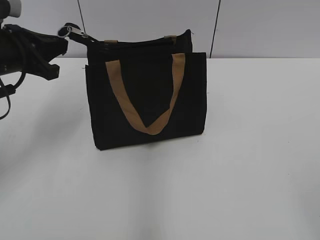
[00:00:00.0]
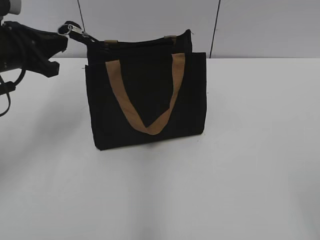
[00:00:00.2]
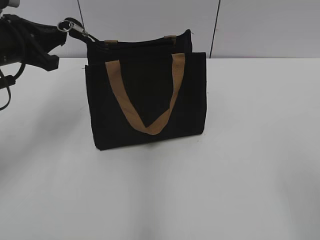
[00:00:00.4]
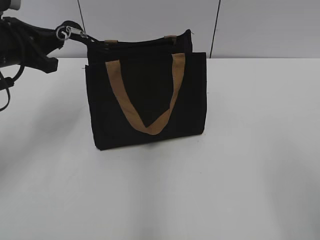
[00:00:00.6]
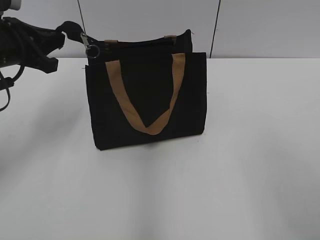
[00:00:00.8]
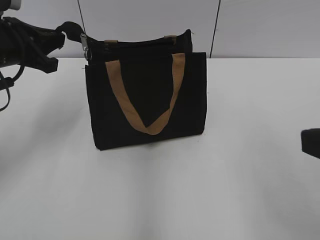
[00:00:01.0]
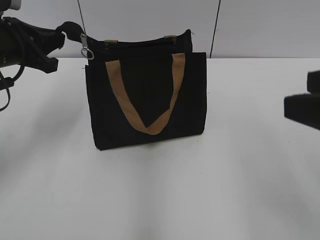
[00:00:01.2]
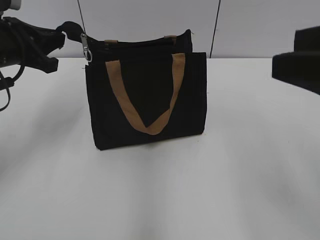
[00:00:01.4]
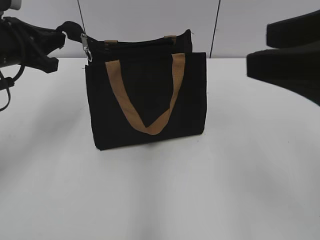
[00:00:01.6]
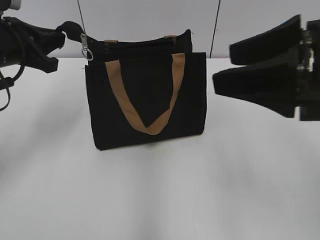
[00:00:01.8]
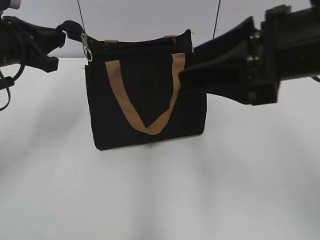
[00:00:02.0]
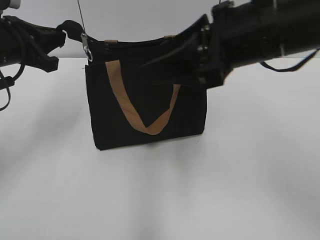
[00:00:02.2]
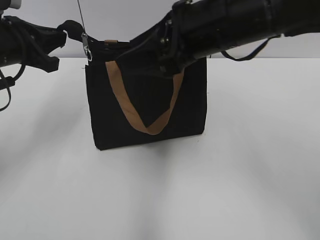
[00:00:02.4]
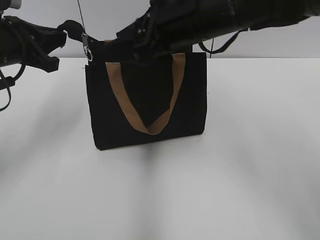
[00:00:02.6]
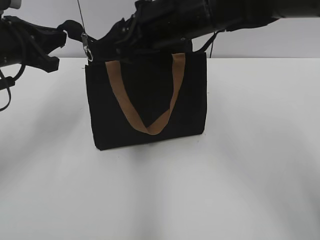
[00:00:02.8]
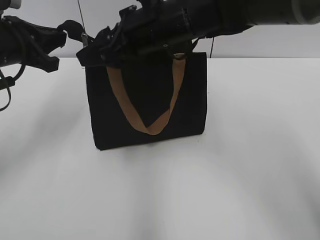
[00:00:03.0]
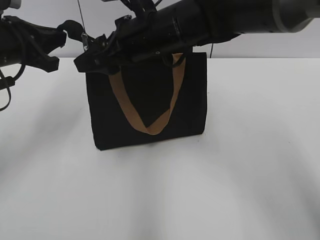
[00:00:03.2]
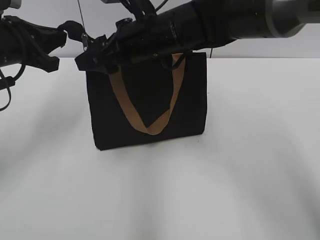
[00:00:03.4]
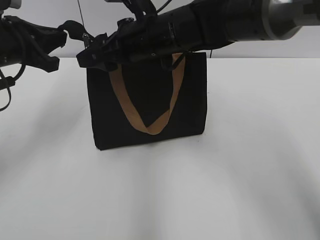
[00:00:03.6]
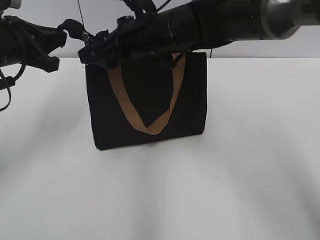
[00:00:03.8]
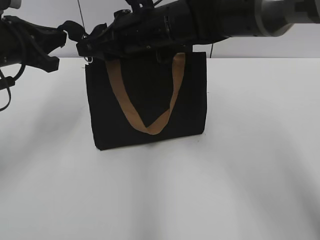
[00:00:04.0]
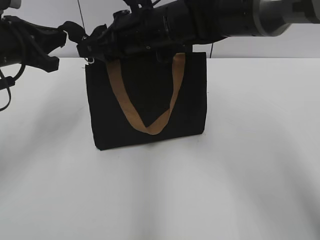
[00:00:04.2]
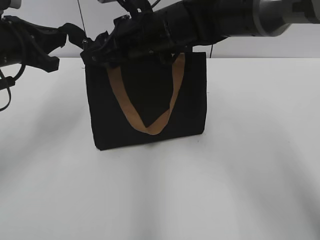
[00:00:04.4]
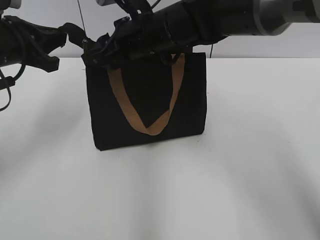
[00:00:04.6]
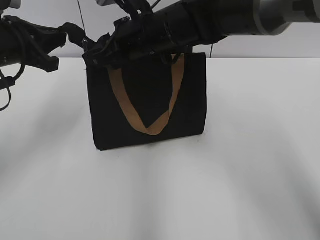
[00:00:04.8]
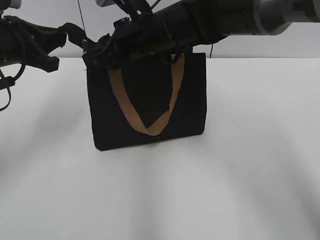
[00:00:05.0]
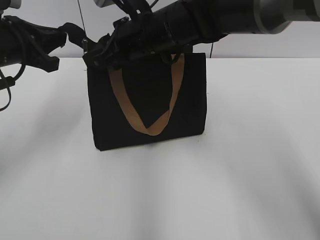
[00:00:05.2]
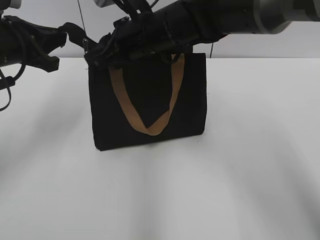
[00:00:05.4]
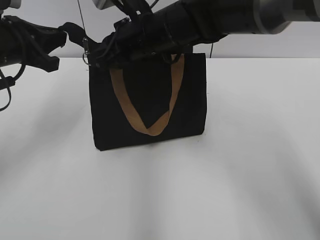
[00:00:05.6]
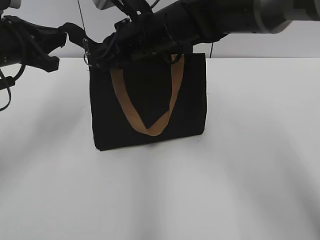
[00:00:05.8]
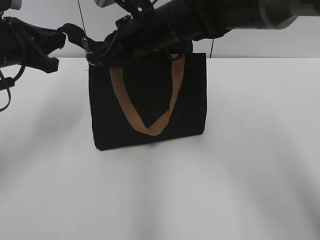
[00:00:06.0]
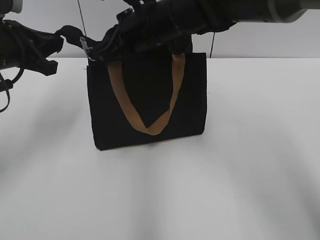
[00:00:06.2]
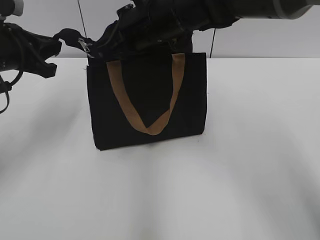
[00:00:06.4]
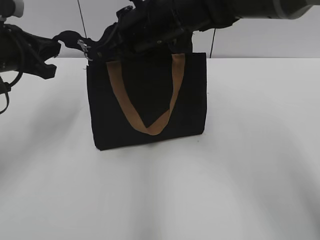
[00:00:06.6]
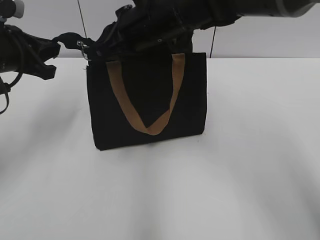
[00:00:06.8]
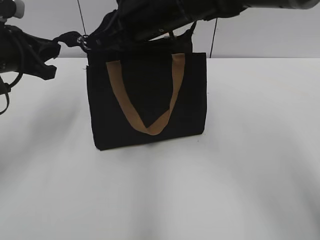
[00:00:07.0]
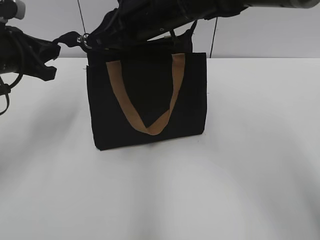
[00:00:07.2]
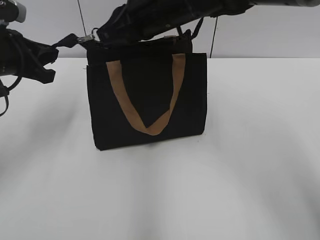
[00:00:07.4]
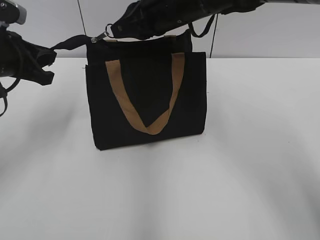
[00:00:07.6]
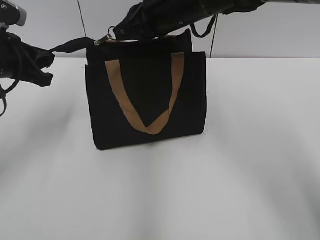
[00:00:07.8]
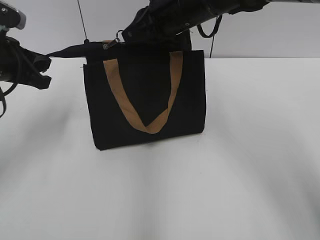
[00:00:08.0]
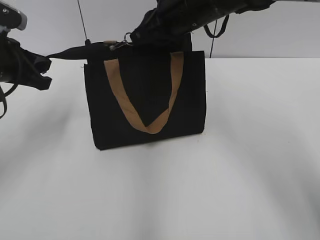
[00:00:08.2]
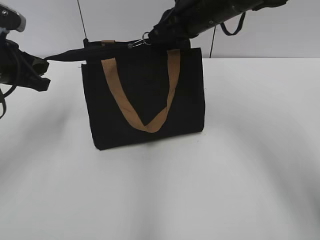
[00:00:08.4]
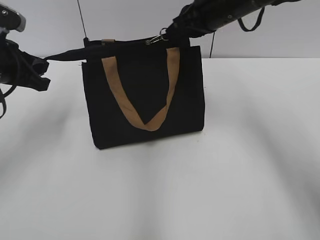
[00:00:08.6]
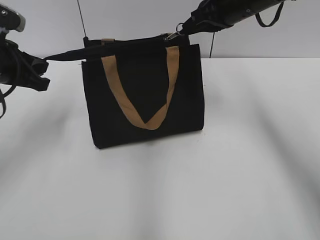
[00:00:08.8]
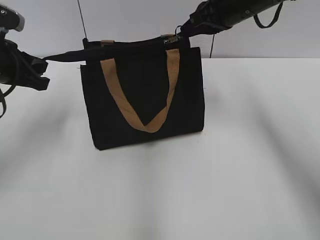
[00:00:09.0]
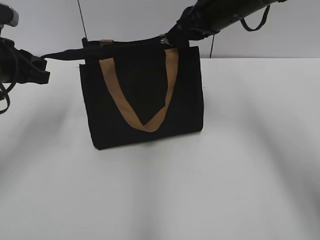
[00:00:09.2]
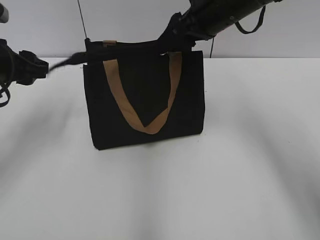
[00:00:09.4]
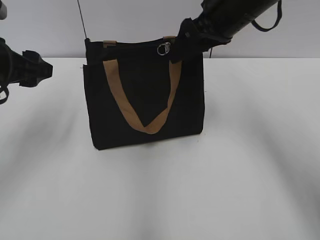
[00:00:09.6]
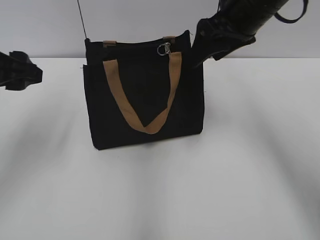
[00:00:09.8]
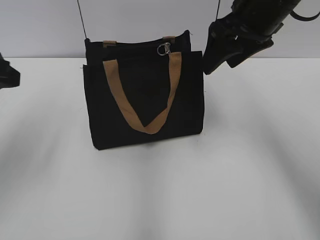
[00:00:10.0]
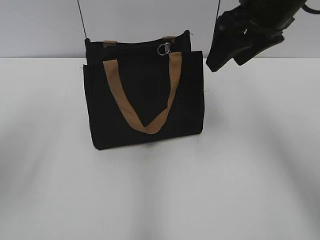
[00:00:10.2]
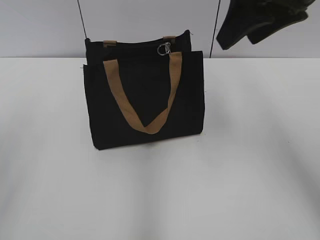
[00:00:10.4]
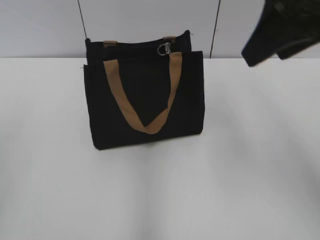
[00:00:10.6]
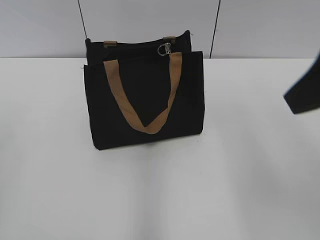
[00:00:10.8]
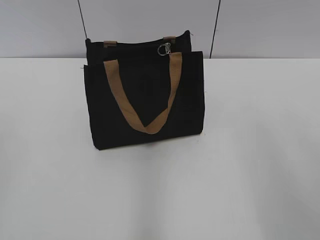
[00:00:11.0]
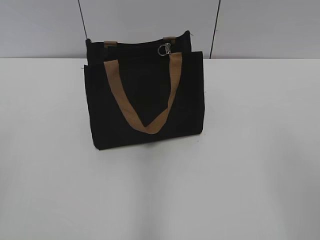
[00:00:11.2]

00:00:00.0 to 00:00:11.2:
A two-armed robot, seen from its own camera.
Step, 00:00:00.0 to 00:00:09.2: Zip up the bag with your right hand.
00:00:00.0 to 00:00:01.6: The right gripper is displaced forward by about 15 cm.
00:00:01.6 to 00:00:03.2: The right gripper is displaced to the left, forward and downward by roughly 30 cm.
00:00:03.2 to 00:00:04.8: The right gripper closes its fingers.
00:00:04.8 to 00:00:06.4: The right gripper closes.
00:00:06.4 to 00:00:08.0: The right gripper ends up approximately 5 cm from where it was.
00:00:08.0 to 00:00:09.6: The right gripper shifts approximately 5 cm to the right, and opens its fingers, while the left gripper opens its fingers.
00:00:09.6 to 00:00:11.2: The left gripper shifts approximately 25 cm backward. Meanwhile the right gripper shifts some 35 cm backward and to the right.
